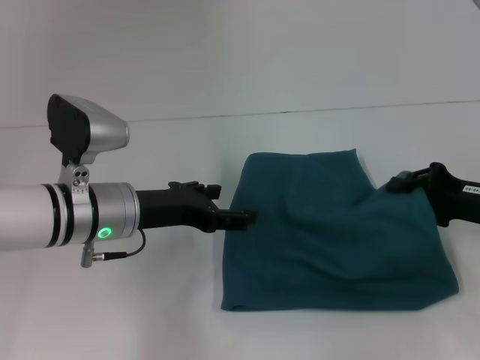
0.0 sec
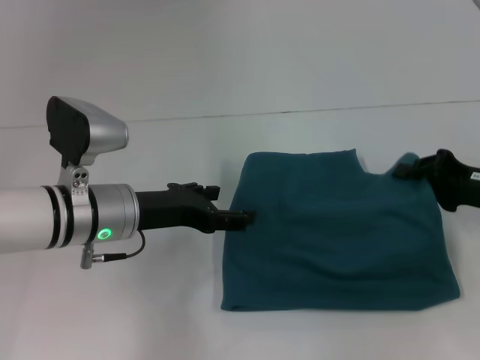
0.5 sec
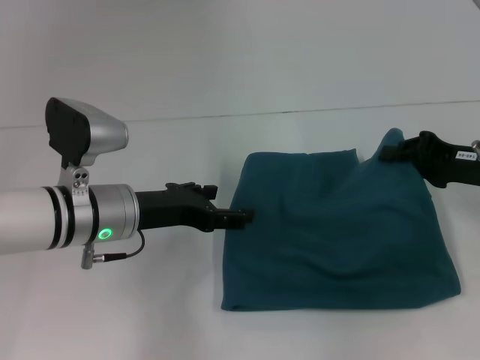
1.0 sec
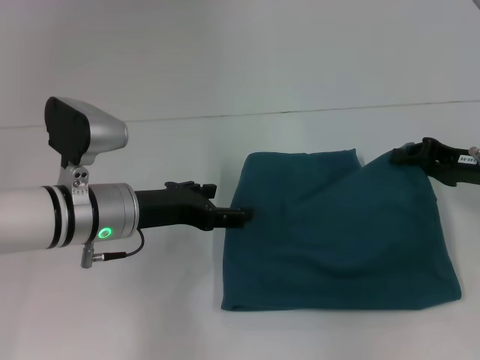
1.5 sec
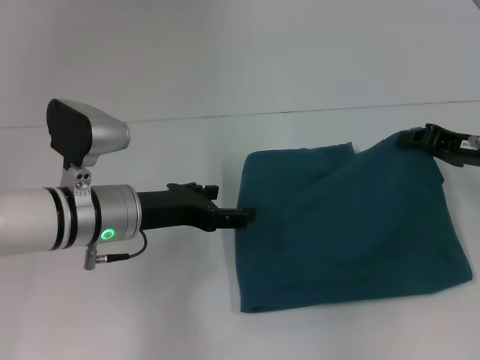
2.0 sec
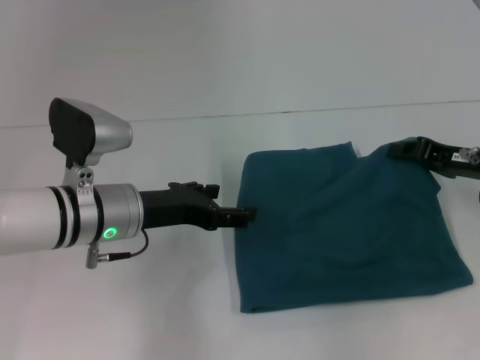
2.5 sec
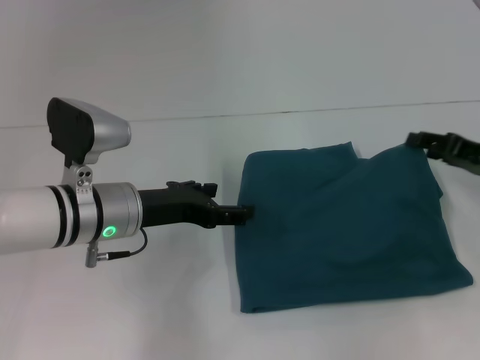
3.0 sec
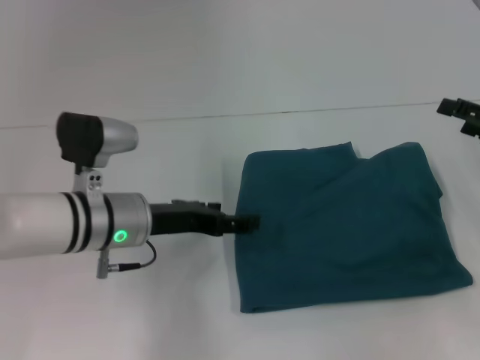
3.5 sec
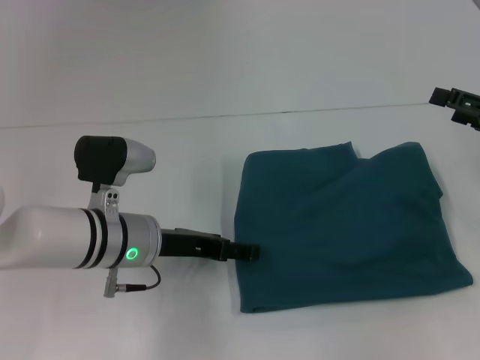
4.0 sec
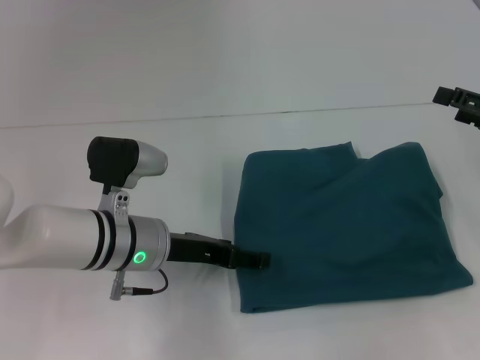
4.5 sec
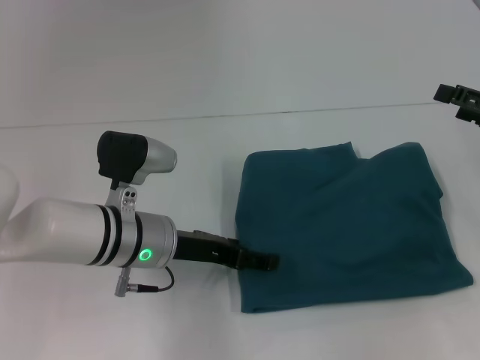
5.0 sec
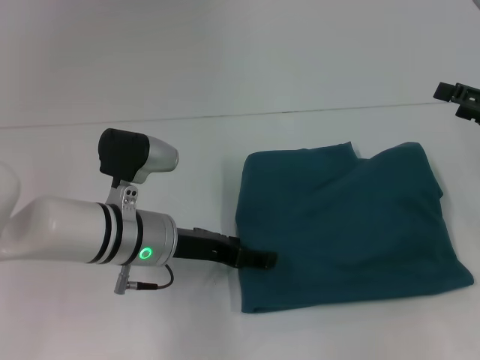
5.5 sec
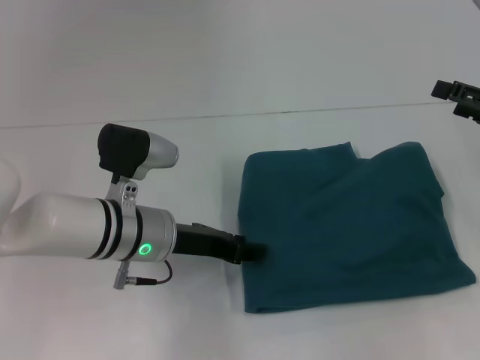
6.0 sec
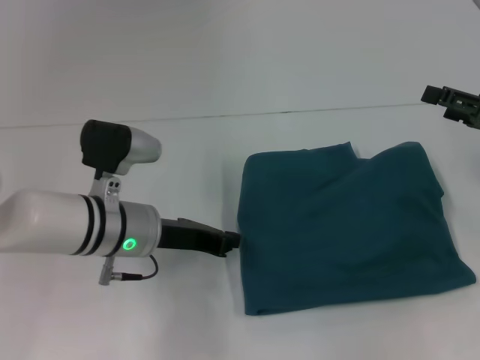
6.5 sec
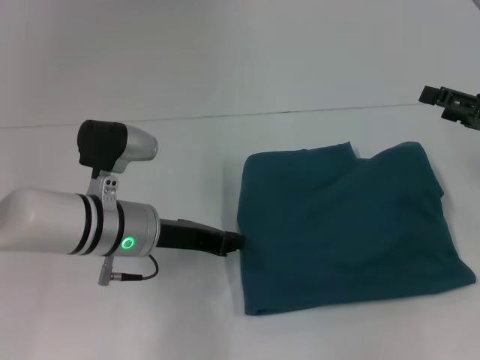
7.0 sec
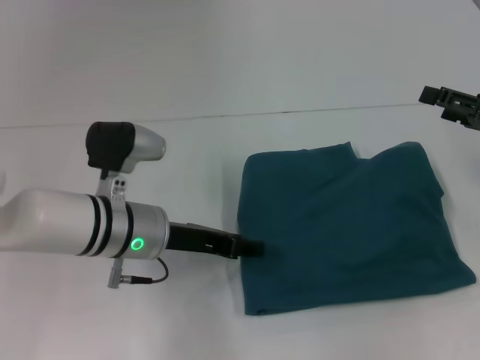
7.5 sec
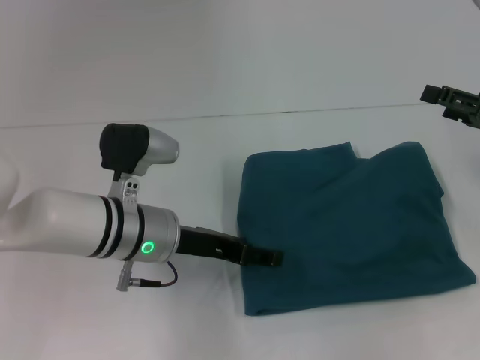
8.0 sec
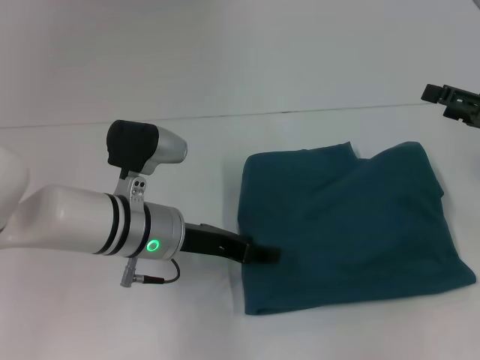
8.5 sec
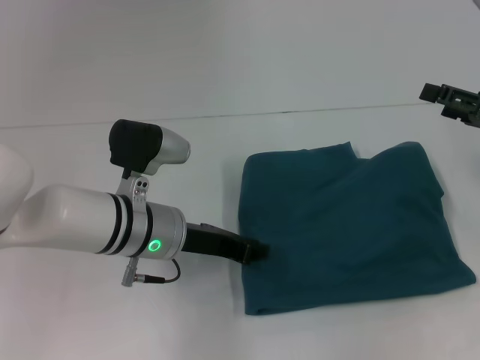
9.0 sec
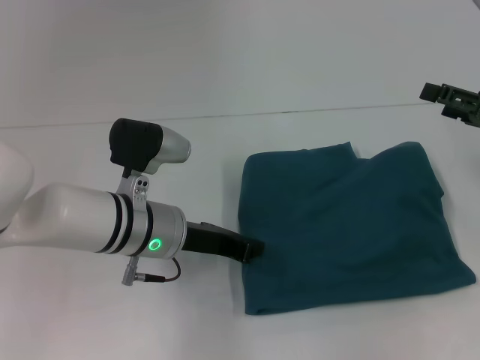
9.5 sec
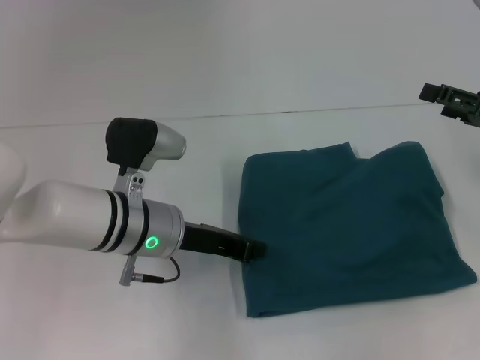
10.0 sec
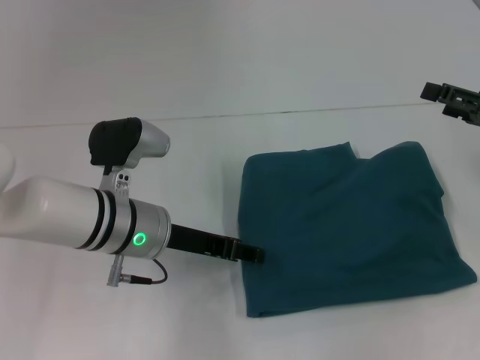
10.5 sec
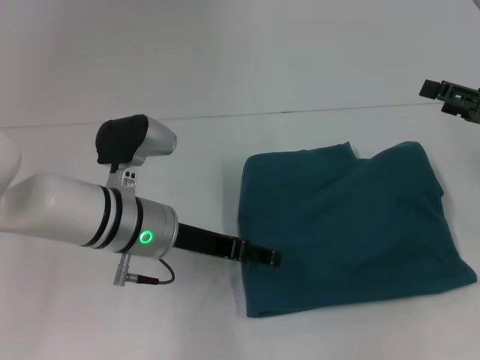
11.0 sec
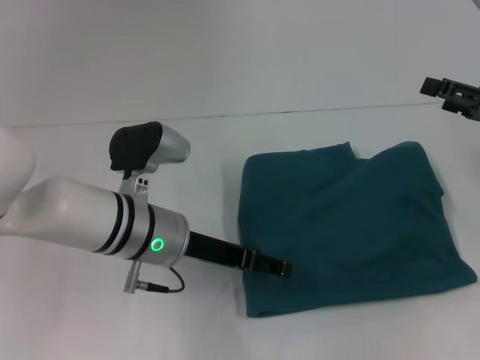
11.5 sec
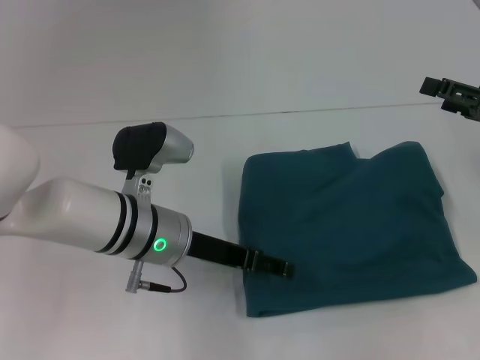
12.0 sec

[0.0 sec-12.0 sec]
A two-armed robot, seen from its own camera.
0.0 sec to 2.0 sec: The right gripper changes place by some 5 cm.
2.0 sec to 4.0 sec: The right gripper moves approximately 5 cm, and opens up.
4.0 sec to 6.0 sec: The left gripper closes up.
6.0 sec to 8.0 sec: The left gripper closes, then reopens.
8.0 sec to 10.0 sec: The left gripper closes up.
10.0 sec to 12.0 sec: The left gripper opens up.

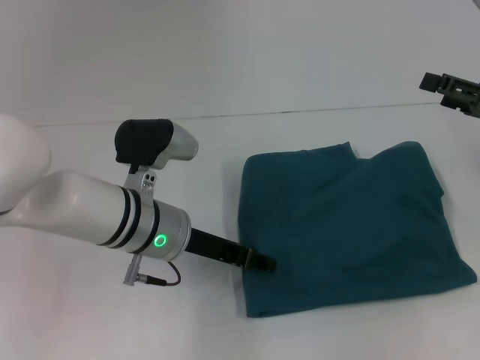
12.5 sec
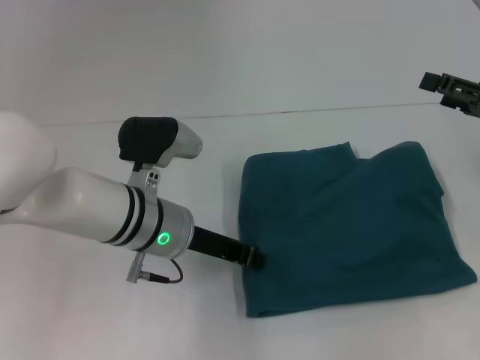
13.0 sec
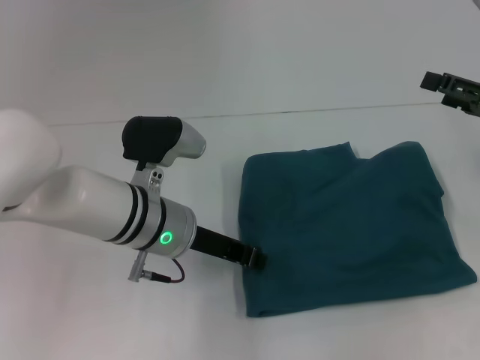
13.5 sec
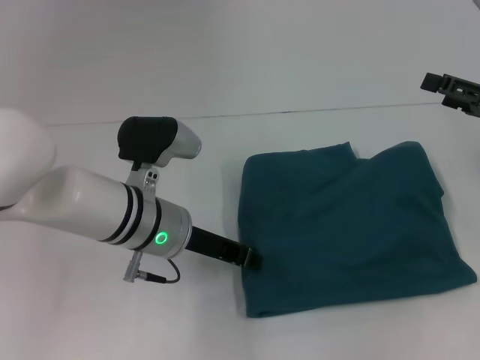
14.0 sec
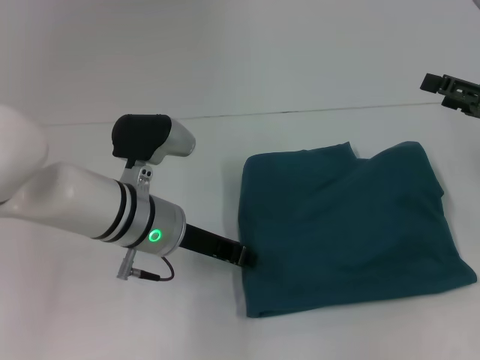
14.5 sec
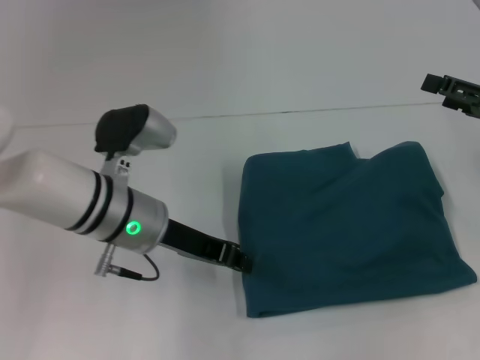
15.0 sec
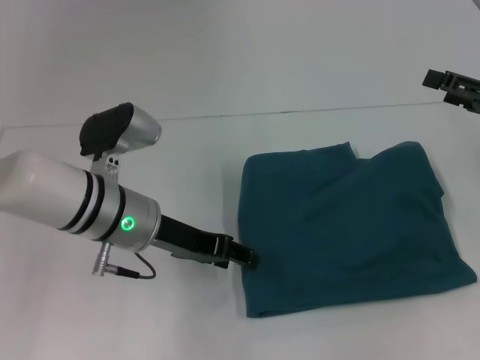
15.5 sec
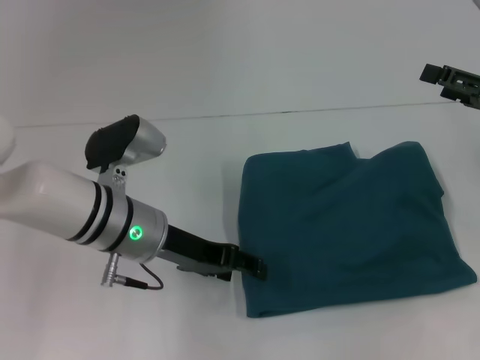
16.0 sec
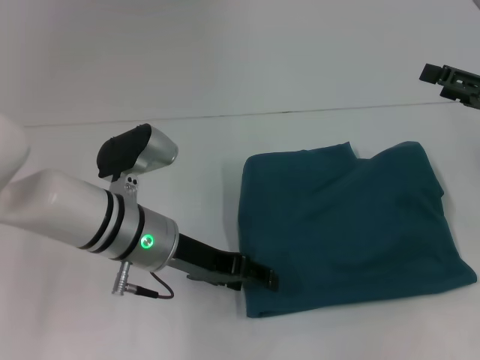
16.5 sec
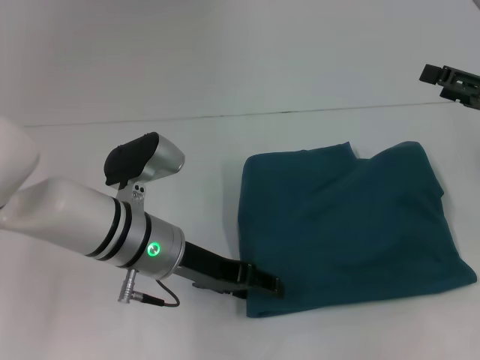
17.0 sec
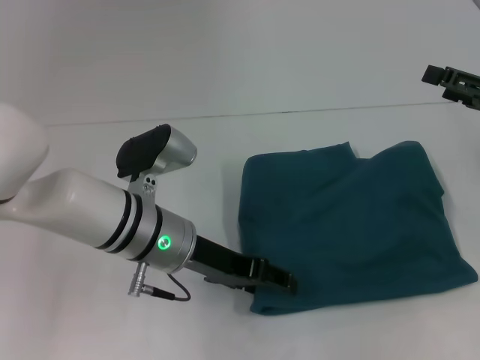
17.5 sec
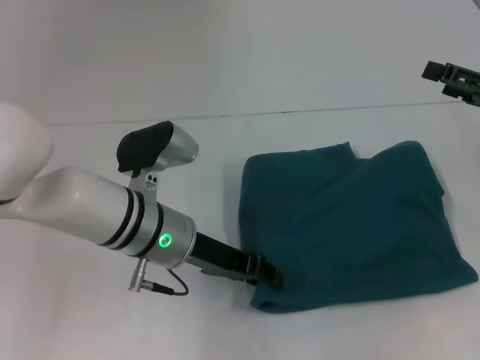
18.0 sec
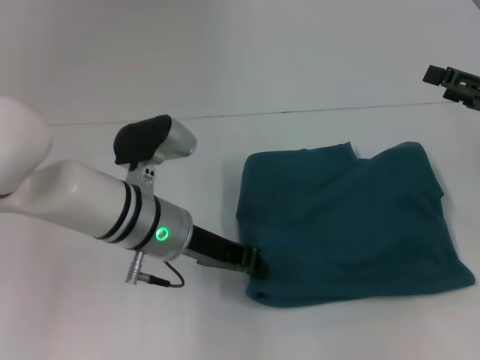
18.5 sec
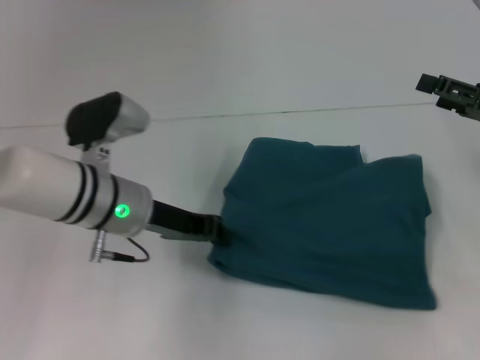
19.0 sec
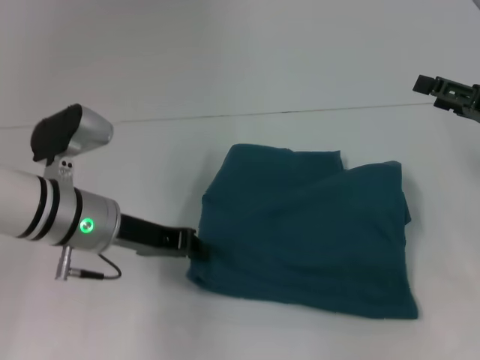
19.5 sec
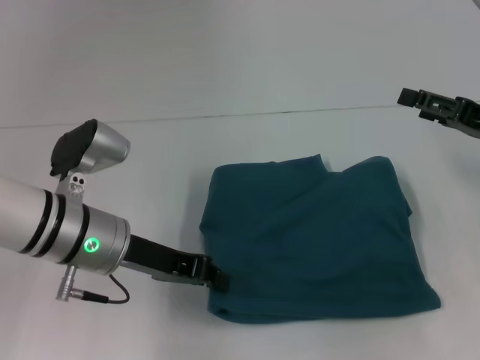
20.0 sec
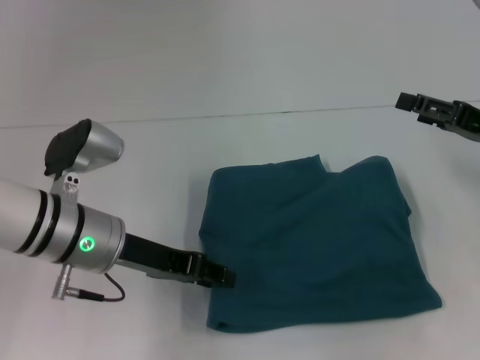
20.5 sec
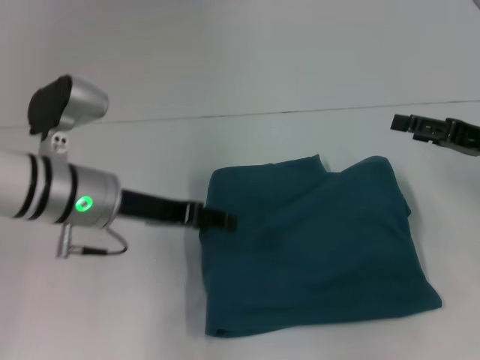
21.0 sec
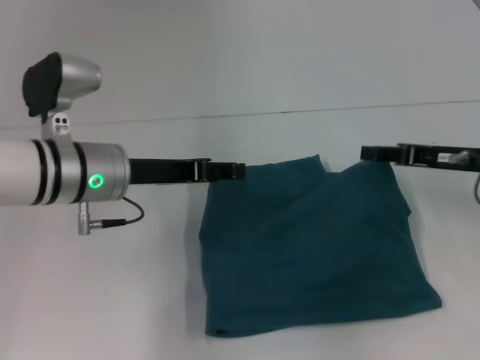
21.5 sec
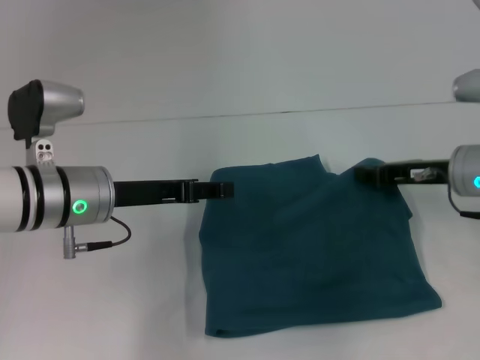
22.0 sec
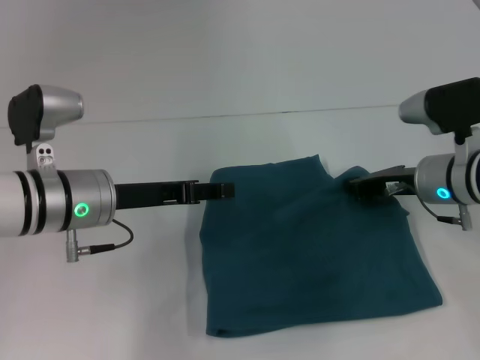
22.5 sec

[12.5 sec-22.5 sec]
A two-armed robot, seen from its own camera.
12.5 sec to 14.5 sec: The left gripper closes its fingers.
14.5 sec to 16.5 sec: The left gripper opens.
16.5 sec to 18.5 sec: The left gripper closes its fingers.
18.5 sec to 20.5 sec: The left gripper moves to the left, some 5 cm.
20.5 sec to 22.5 sec: The right gripper goes roughly 10 cm to the left and downward, and closes. Meanwhile the left gripper opens up.

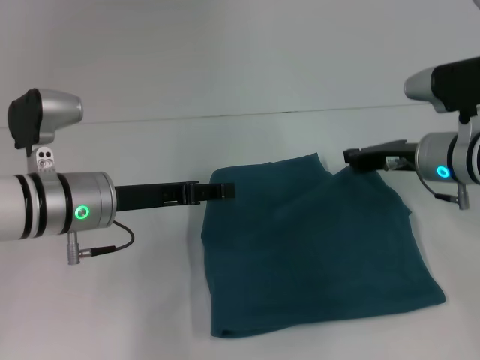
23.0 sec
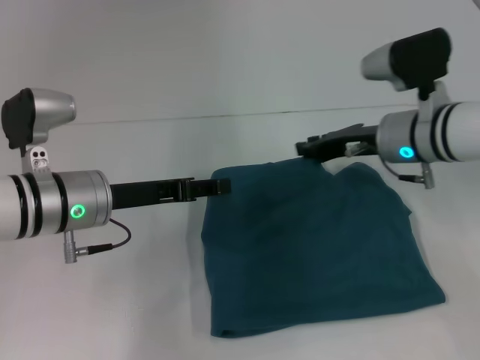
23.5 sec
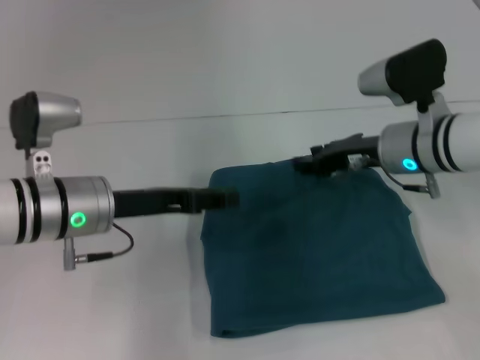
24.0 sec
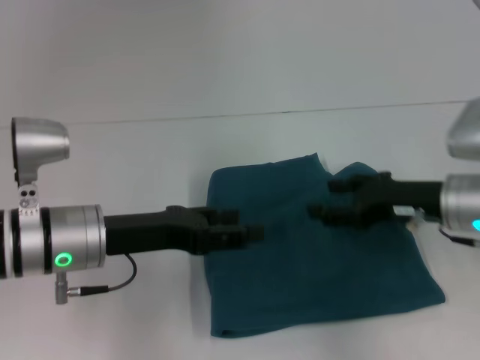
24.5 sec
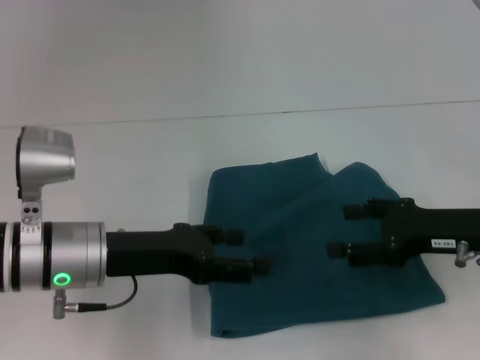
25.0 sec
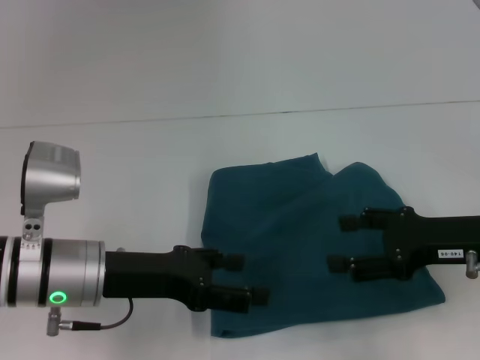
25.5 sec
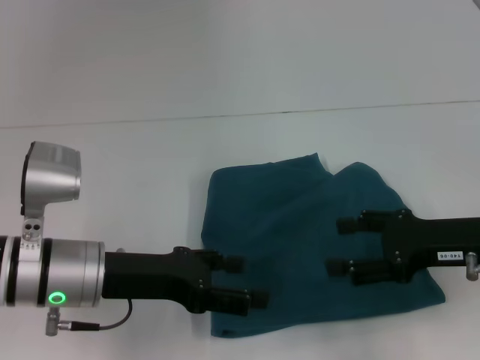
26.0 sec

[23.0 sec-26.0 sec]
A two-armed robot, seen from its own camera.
23.0 sec to 24.5 sec: The right gripper shifts about 5 cm backward, and opens its fingers.
24.5 sec to 26.0 sec: The right gripper shifts by roughly 5 cm, and opens its fingers.

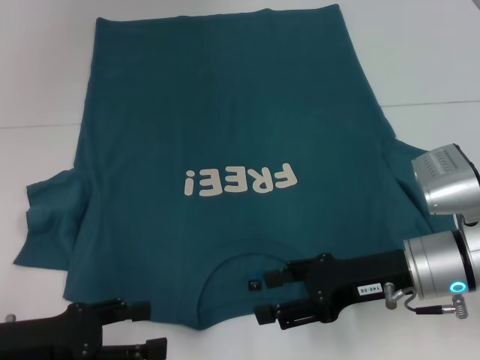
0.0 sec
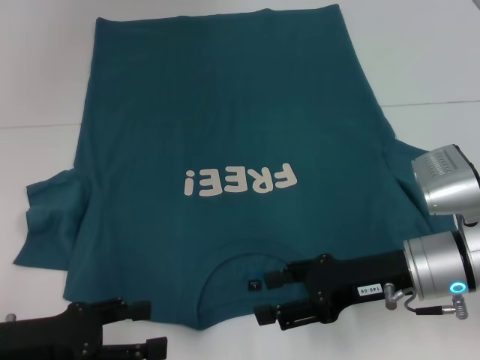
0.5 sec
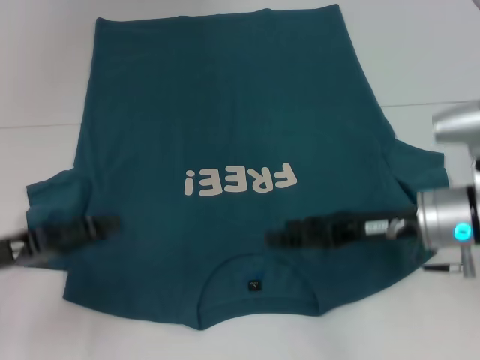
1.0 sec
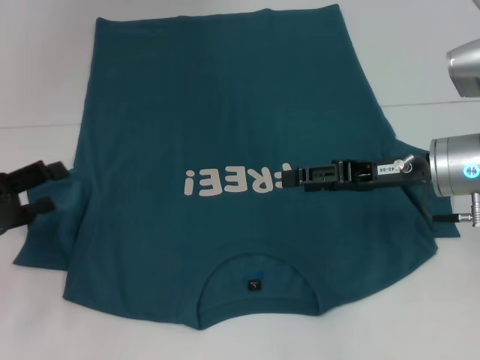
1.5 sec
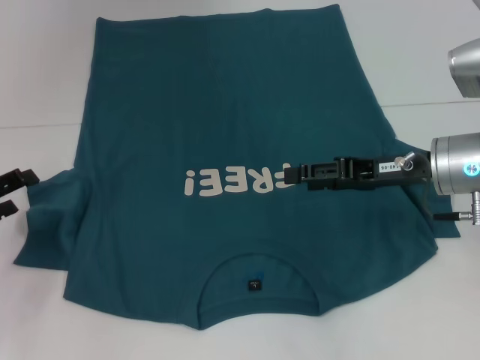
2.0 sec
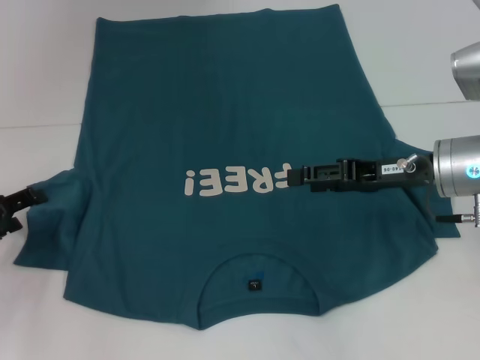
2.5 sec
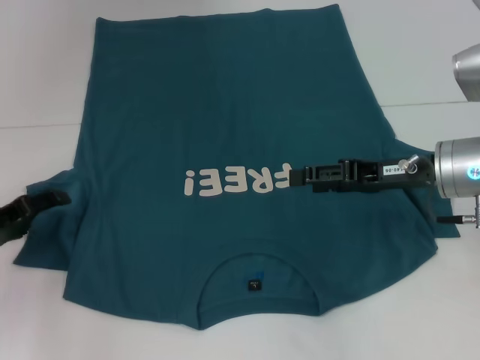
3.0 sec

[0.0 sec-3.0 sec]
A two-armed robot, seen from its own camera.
0.0 sec to 1.5 sec: The right gripper shifts roughly 10 cm forward and upward, while the left gripper shifts about 10 cm forward and to the left.
1.5 sec to 3.0 sec: The left gripper ends up approximately 5 cm from where it was.
